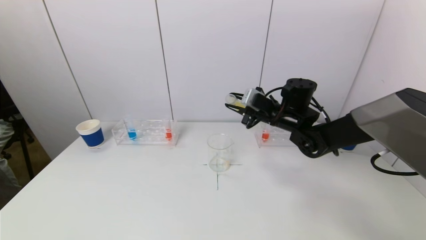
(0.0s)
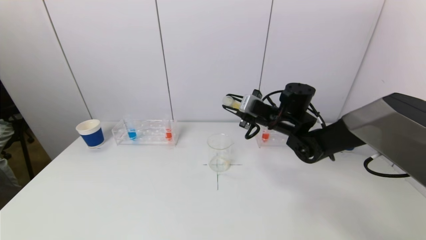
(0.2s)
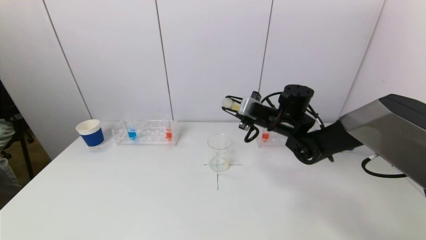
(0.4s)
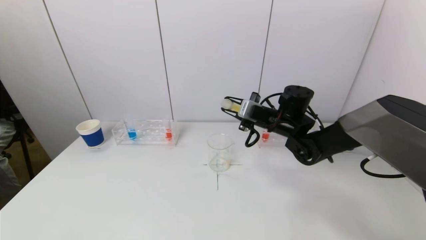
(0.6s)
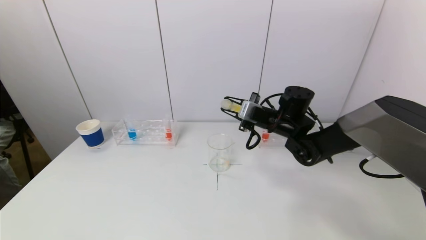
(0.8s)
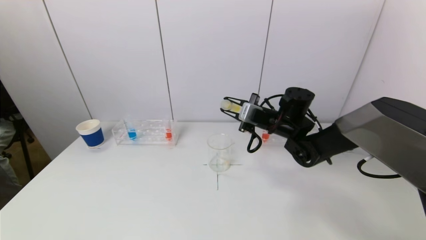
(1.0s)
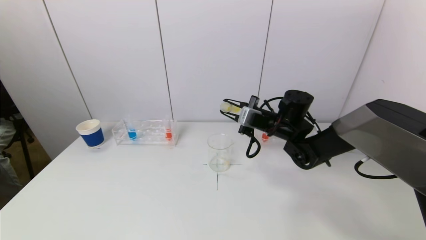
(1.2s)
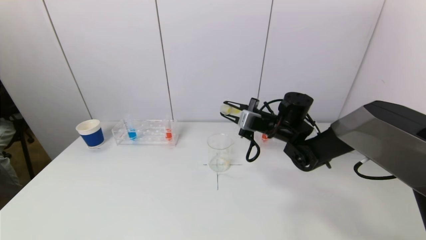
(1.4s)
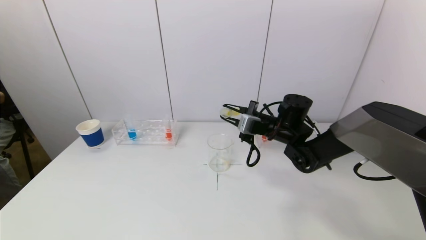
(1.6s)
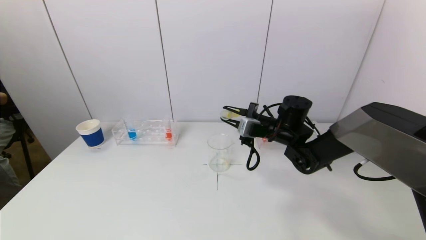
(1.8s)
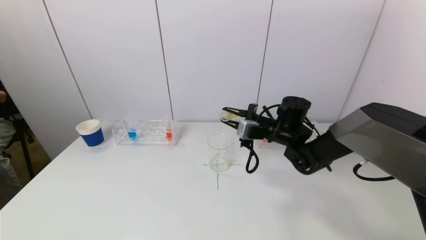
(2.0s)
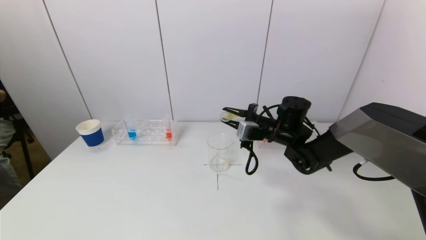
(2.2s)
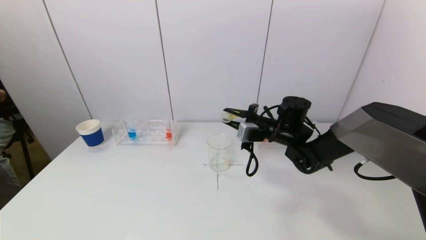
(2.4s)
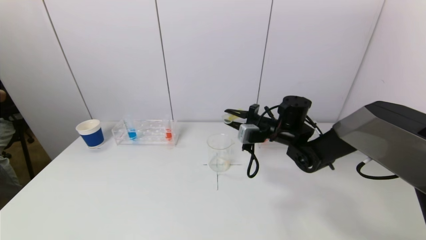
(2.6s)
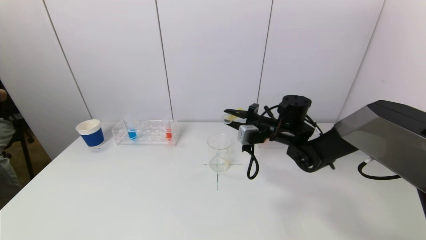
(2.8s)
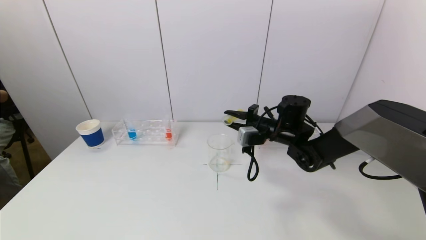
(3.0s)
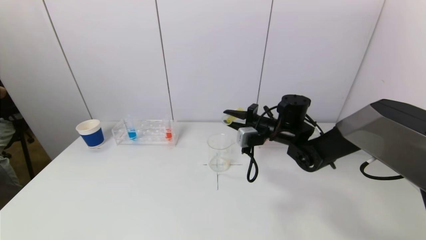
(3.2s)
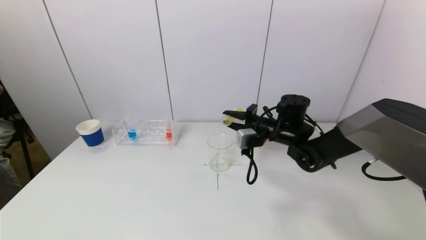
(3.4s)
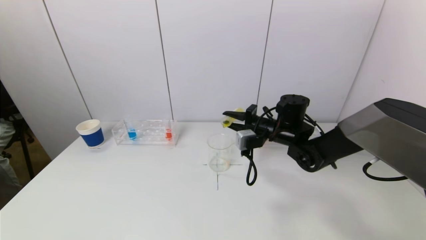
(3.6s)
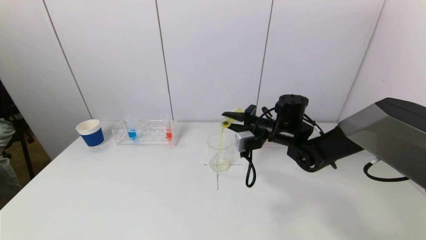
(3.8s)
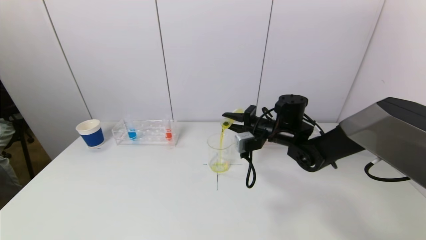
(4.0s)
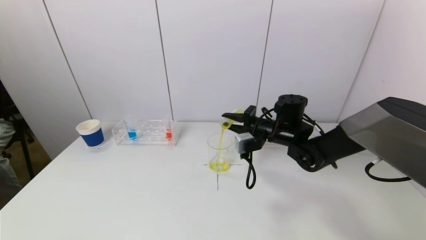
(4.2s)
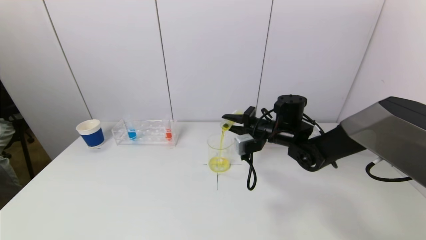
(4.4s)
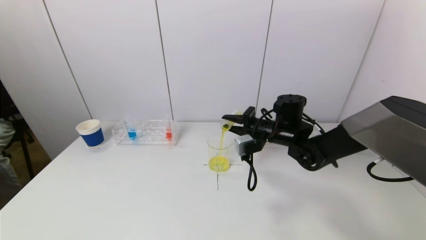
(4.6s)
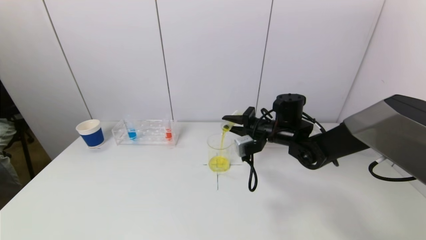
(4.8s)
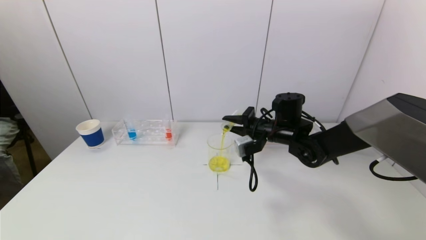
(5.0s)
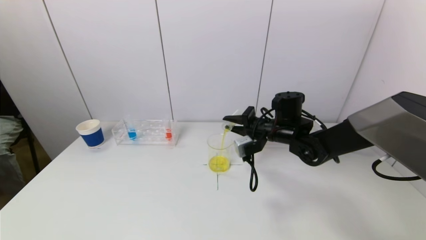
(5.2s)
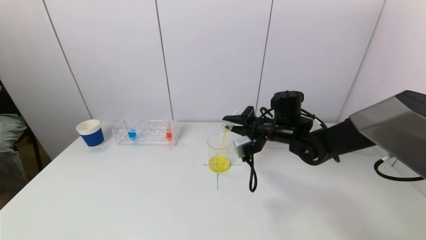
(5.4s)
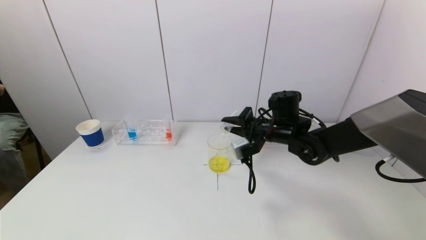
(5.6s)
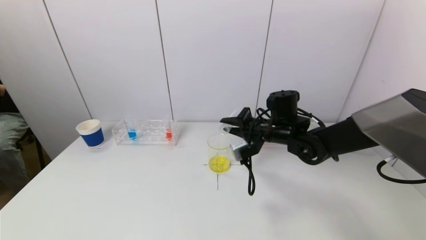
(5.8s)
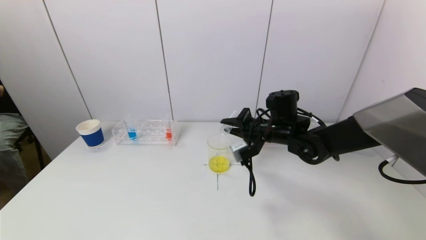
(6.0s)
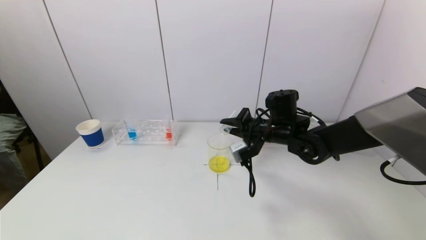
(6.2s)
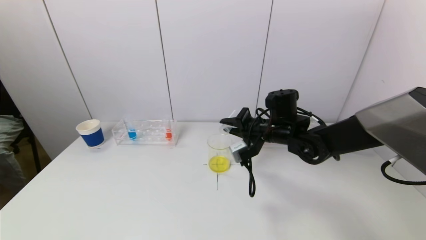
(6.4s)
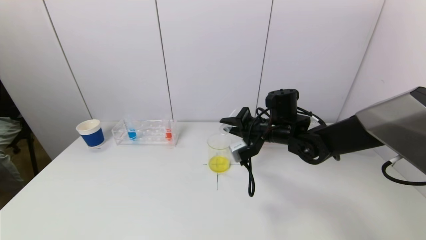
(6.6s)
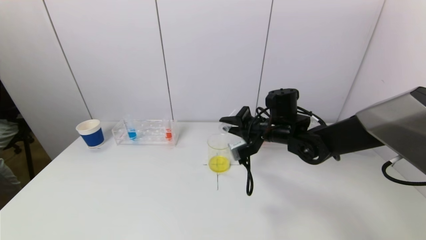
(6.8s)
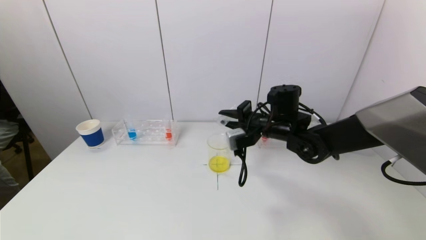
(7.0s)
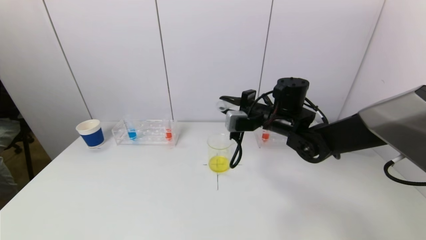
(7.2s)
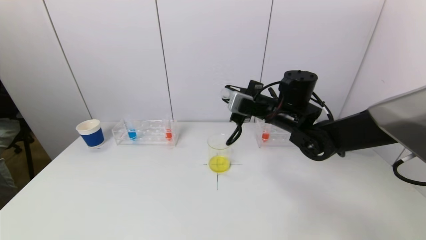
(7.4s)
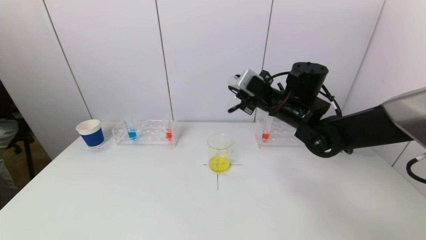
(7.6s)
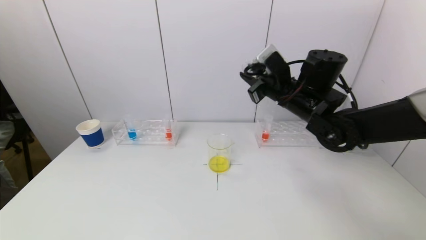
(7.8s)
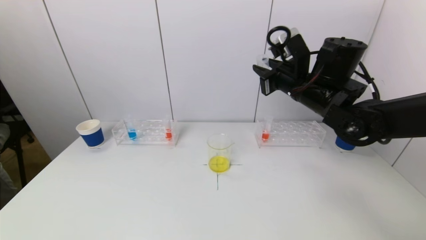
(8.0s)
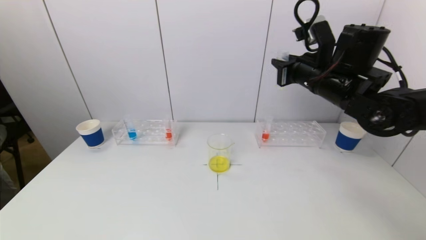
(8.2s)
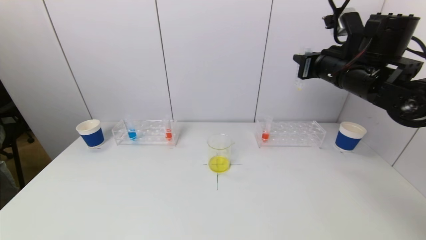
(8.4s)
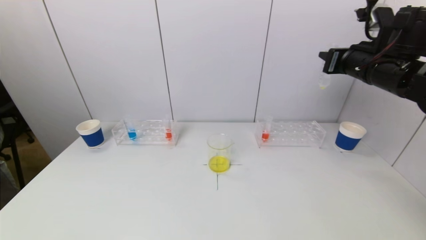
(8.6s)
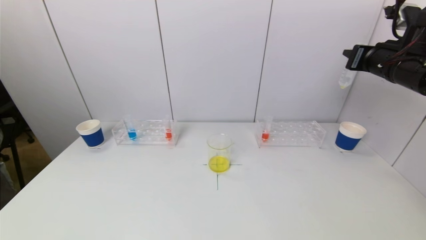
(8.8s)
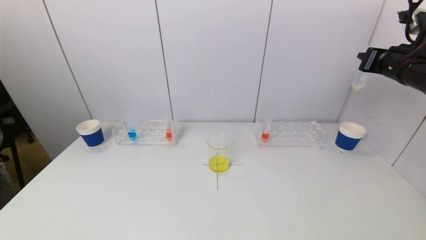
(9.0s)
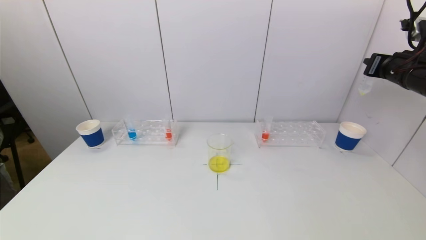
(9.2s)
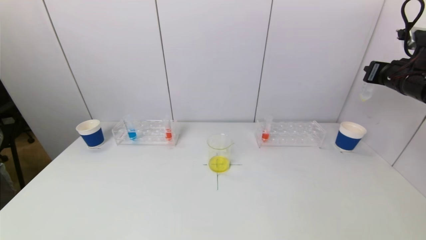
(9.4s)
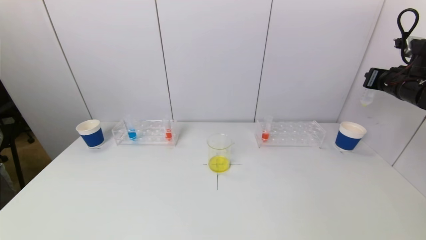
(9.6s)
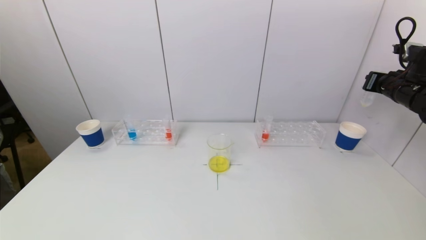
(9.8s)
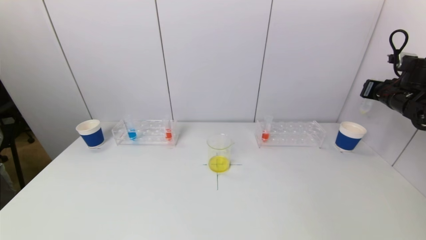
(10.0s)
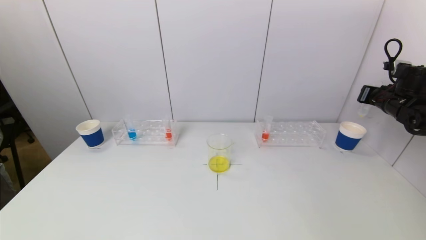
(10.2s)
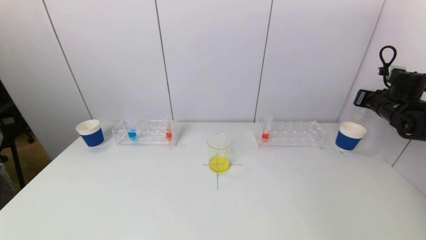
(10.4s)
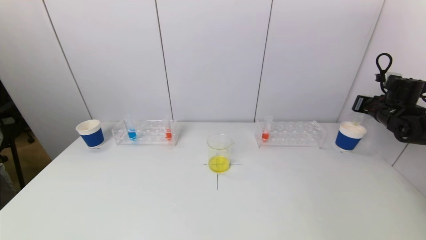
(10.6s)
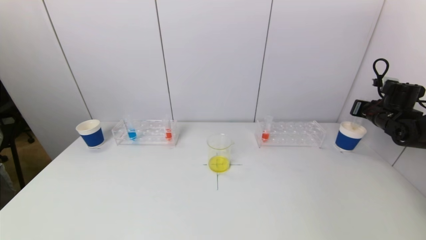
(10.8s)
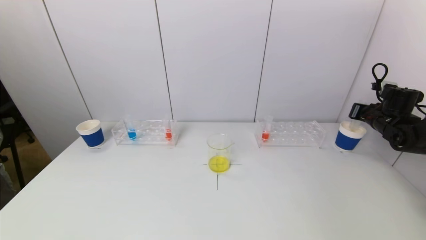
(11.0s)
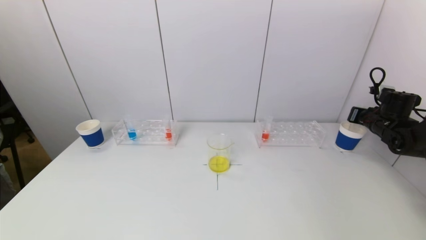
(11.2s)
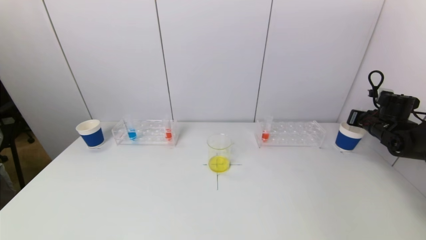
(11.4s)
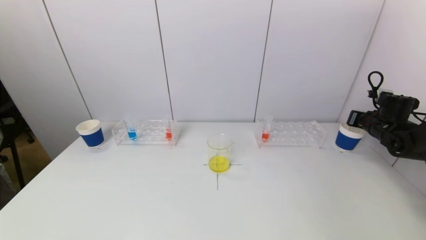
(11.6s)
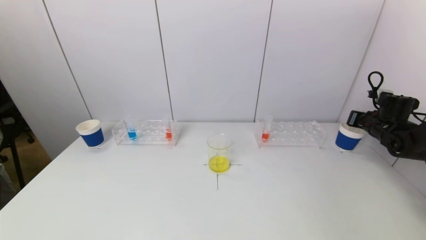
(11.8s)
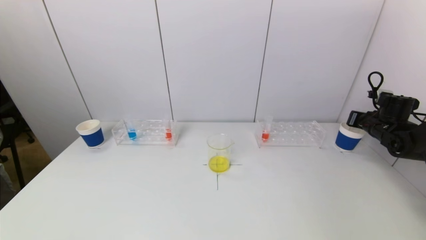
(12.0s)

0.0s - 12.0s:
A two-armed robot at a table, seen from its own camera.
Task of the whole recording: pick up a test tube with pigment on left test tube rack and a test tube with pigment on right test tube rack by grippers and pour them into the beaker.
Step, 0.0s - 6.6s: Pour the yellow reagent into the graduated cylinder with the right gripper.
0.0s - 1.6s: There are only small adjustments of the grippers.
1.6s - 3.0s: The grippers make only small movements.
3.0s - 4.4s: The grippers move only a little.
4.4s - 6.0s: The grippers move only a little.
6.0s - 7.6s: The right gripper goes some 10 cm upward.
7.6s - 9.0s: The right gripper travels to the right by roughly 20 cm.
9.0s - 10.4s: The right gripper heads downward, to the right and forward, covering some 15 cm.
10.4s - 12.0s: The right gripper goes roughly 5 cm downward.

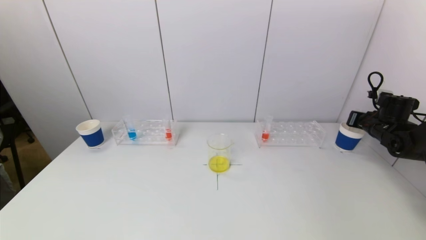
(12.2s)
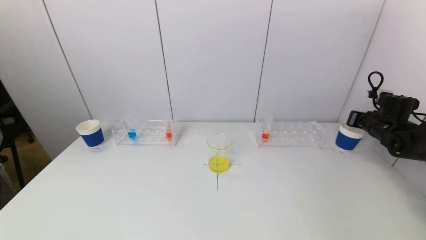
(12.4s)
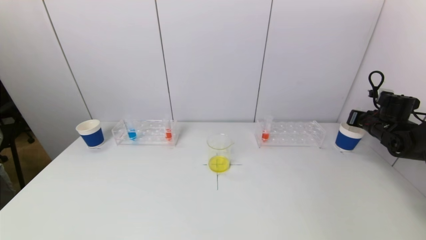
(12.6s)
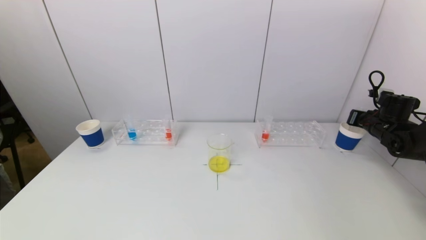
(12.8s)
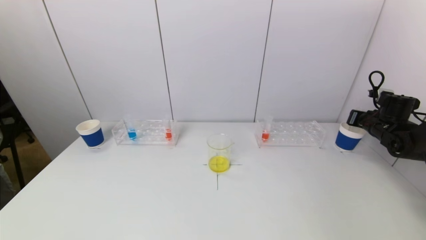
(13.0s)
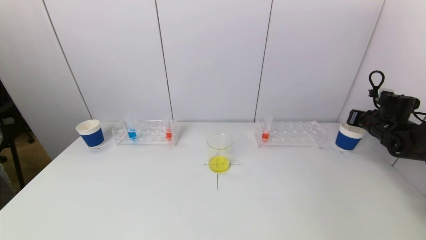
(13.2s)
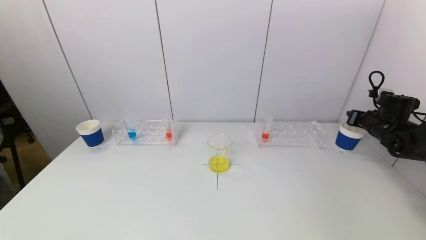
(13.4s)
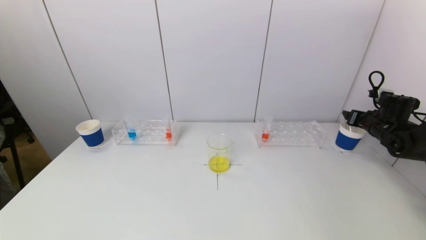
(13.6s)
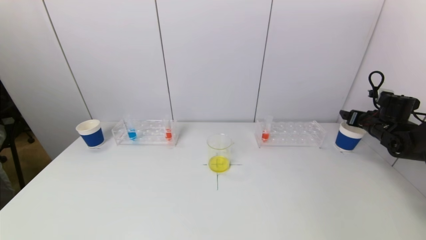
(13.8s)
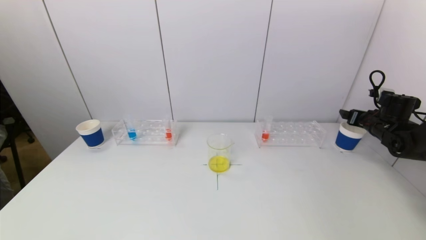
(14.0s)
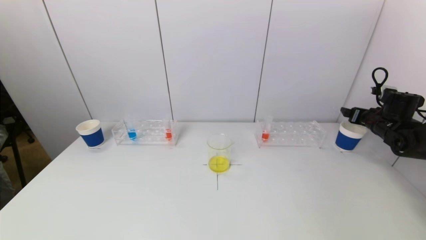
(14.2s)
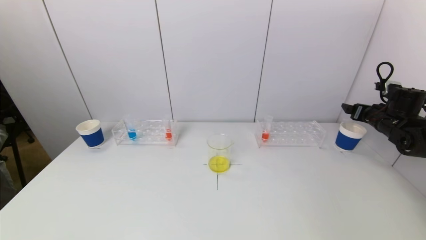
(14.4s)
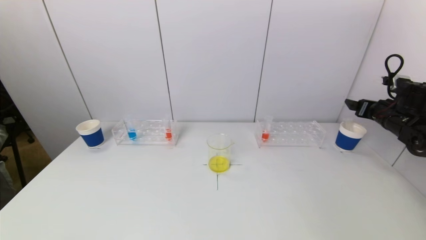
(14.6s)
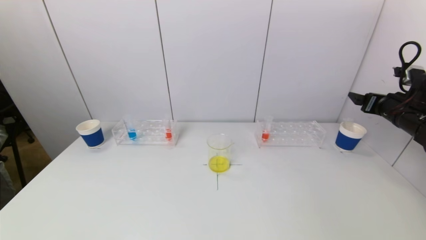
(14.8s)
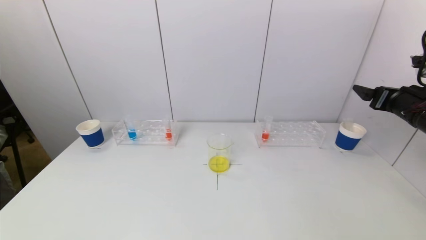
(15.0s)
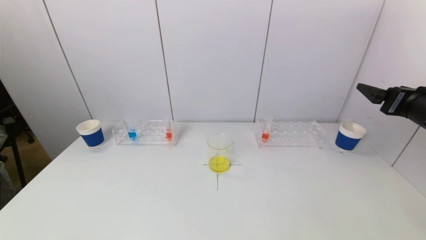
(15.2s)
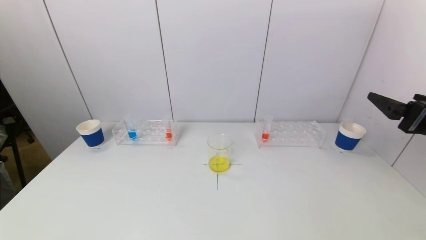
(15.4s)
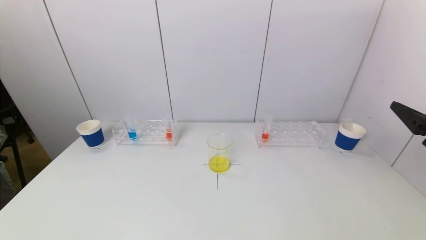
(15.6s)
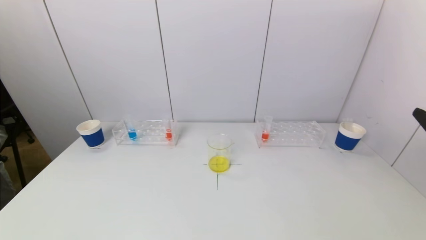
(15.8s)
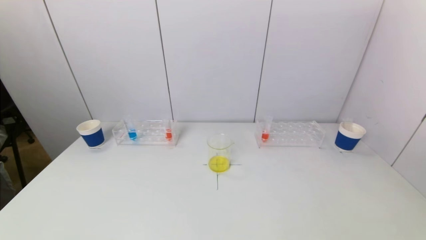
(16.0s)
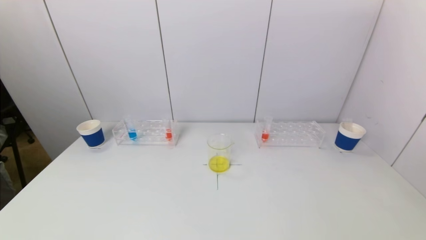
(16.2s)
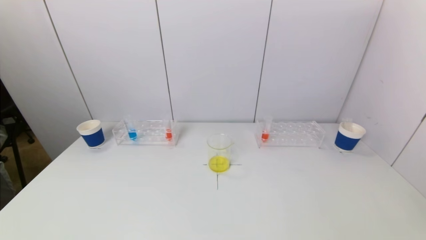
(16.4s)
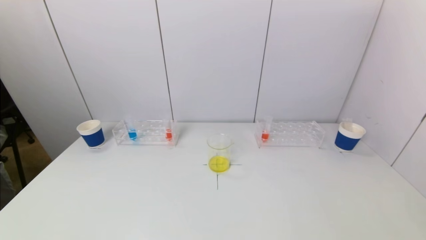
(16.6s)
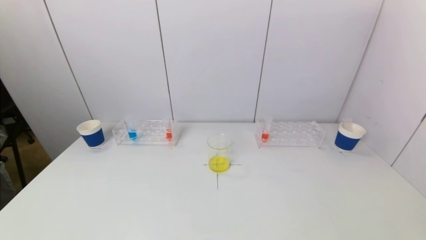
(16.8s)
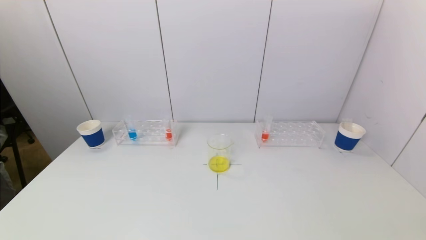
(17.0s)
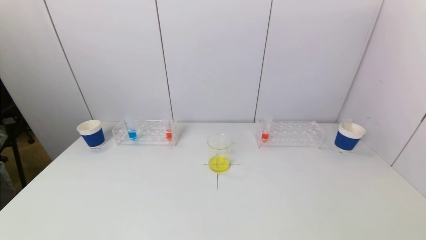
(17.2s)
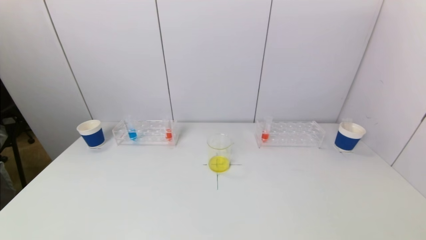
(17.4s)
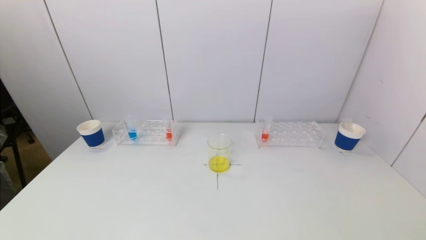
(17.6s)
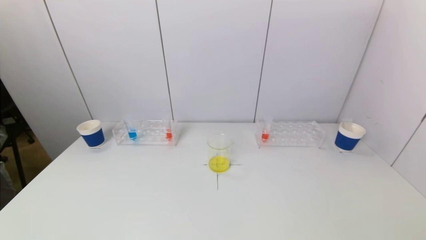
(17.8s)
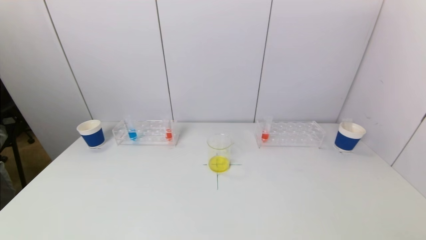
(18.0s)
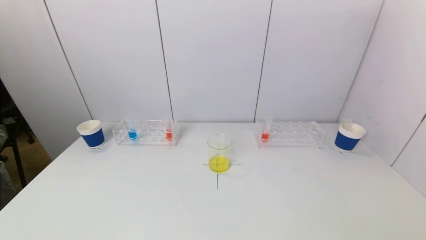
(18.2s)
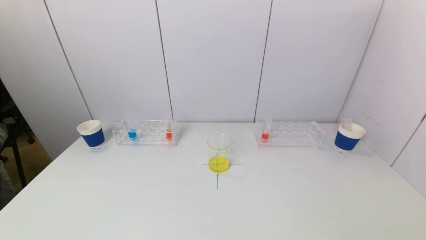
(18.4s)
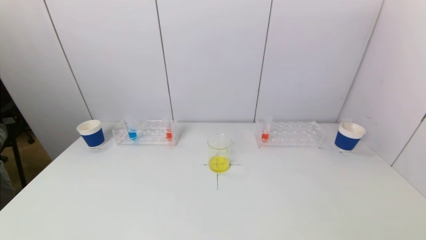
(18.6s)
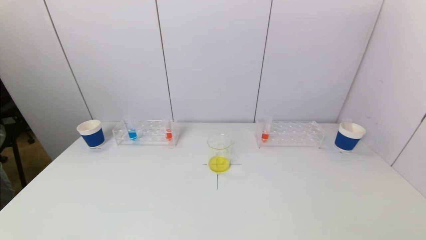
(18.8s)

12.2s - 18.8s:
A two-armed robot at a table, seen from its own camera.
Task of the whole recording: pick up a test tube with pigment on left test tube rack and a test tube with pigment on right test tube rack by grippers and pour them into the beaker.
13.8s - 15.4s: The right gripper heads backward, upward and to the left, covering some 30 cm.
15.4s - 17.2s: The right gripper goes some 25 cm backward and downward.
